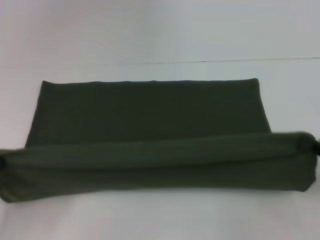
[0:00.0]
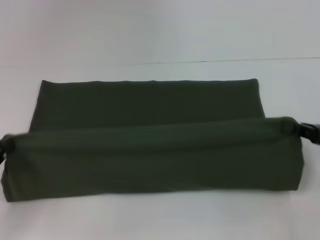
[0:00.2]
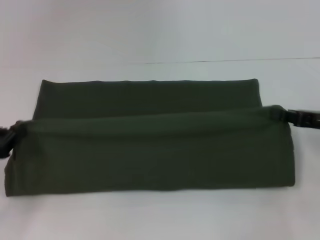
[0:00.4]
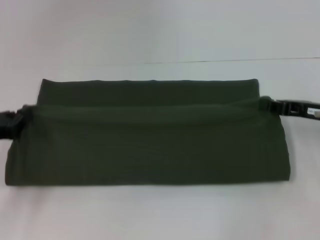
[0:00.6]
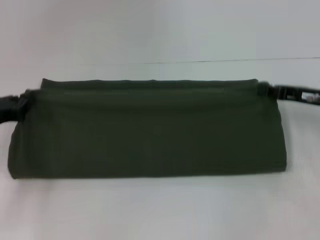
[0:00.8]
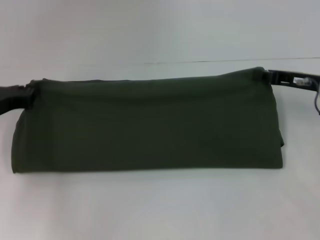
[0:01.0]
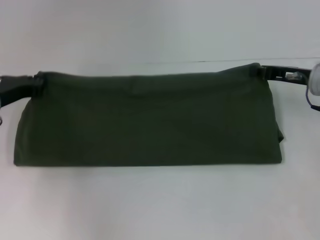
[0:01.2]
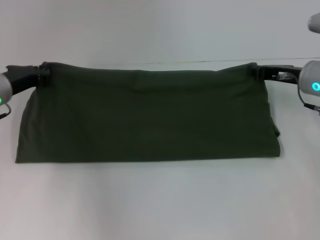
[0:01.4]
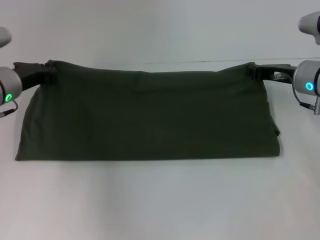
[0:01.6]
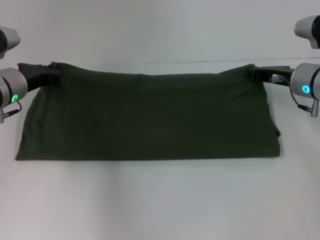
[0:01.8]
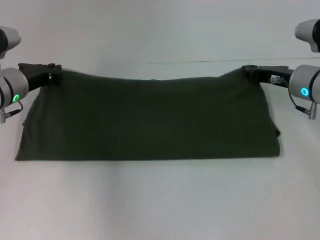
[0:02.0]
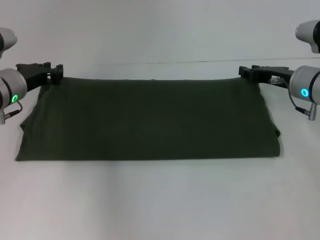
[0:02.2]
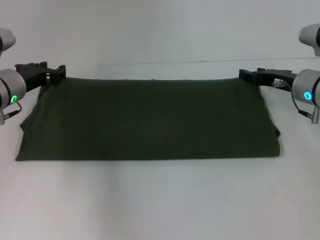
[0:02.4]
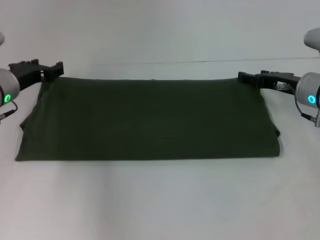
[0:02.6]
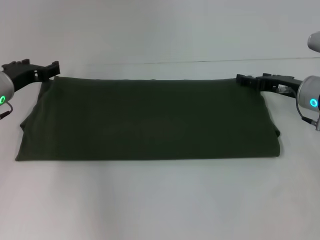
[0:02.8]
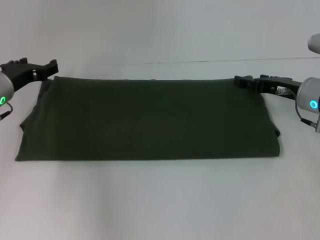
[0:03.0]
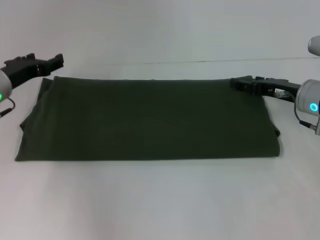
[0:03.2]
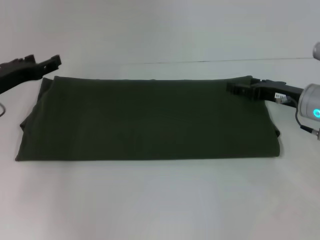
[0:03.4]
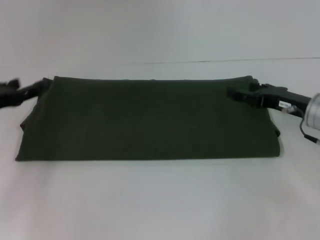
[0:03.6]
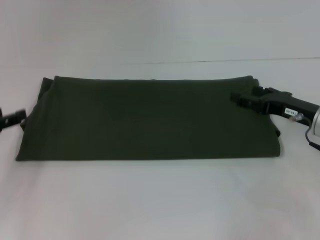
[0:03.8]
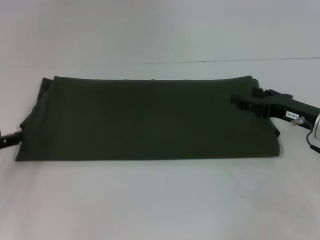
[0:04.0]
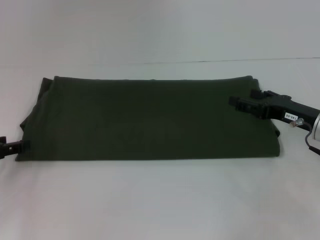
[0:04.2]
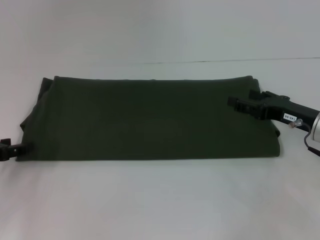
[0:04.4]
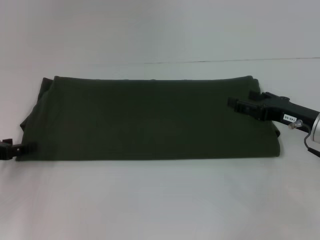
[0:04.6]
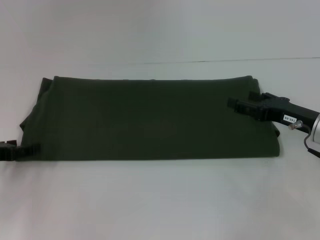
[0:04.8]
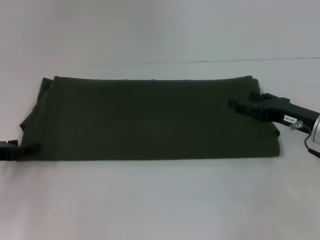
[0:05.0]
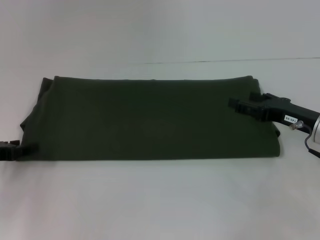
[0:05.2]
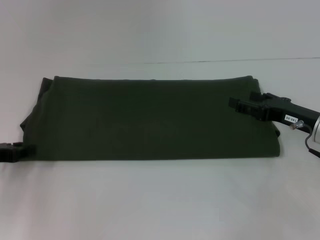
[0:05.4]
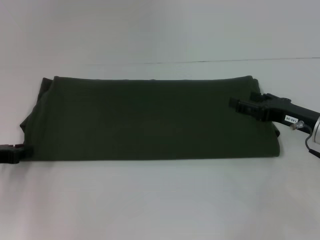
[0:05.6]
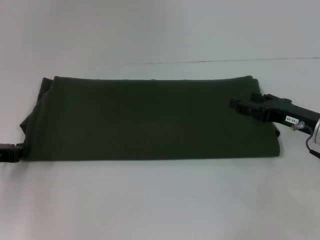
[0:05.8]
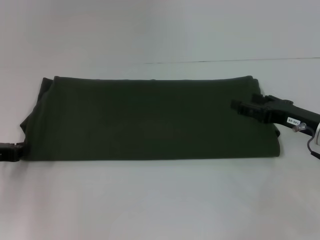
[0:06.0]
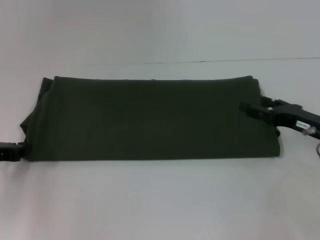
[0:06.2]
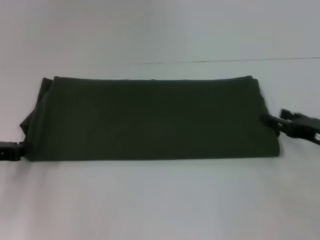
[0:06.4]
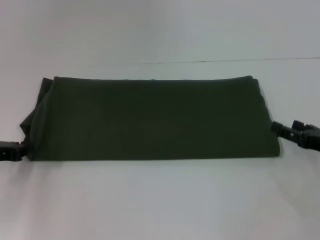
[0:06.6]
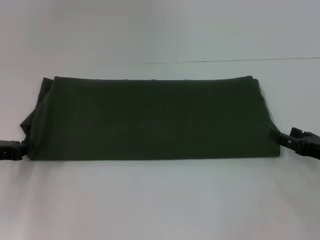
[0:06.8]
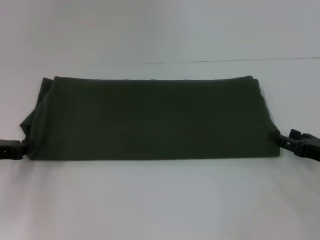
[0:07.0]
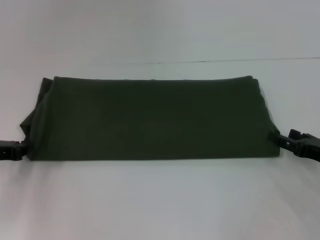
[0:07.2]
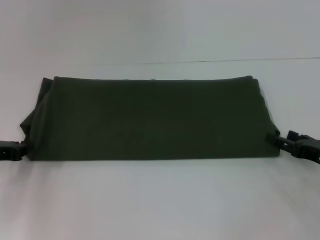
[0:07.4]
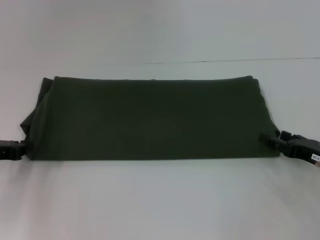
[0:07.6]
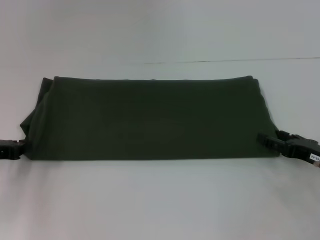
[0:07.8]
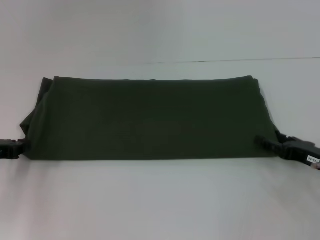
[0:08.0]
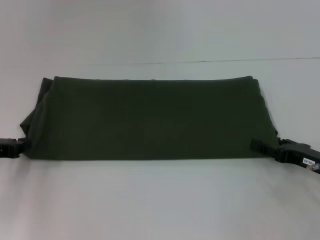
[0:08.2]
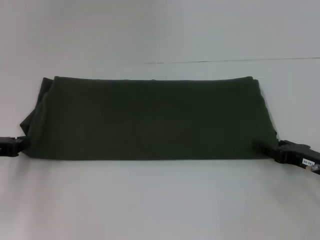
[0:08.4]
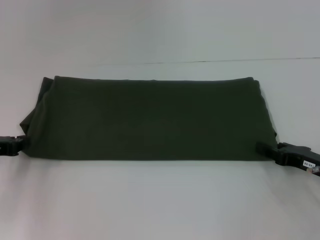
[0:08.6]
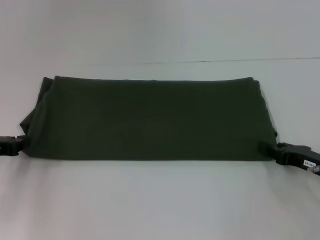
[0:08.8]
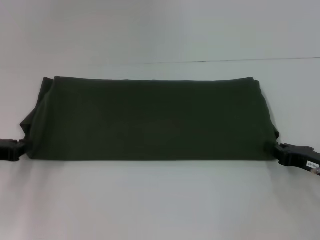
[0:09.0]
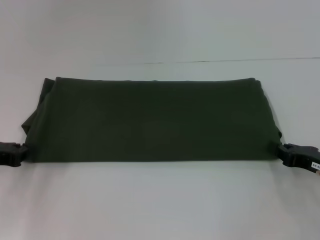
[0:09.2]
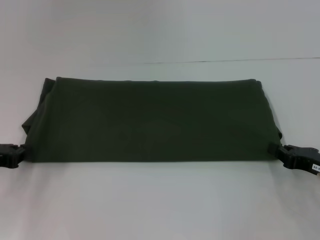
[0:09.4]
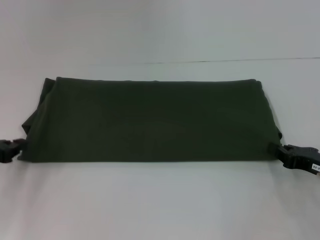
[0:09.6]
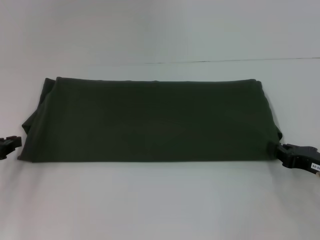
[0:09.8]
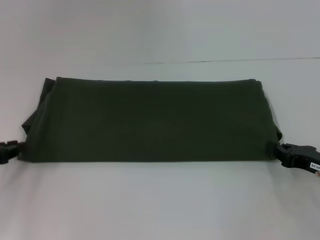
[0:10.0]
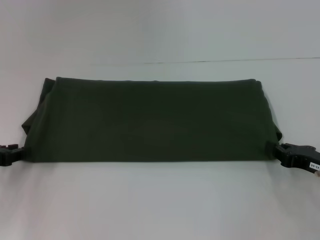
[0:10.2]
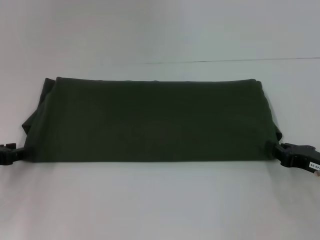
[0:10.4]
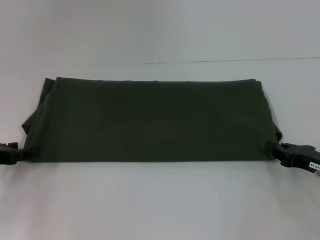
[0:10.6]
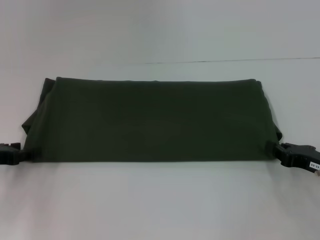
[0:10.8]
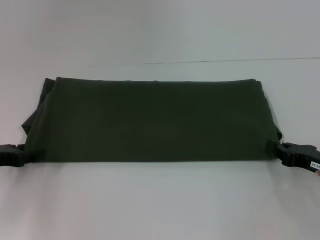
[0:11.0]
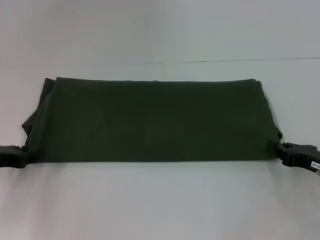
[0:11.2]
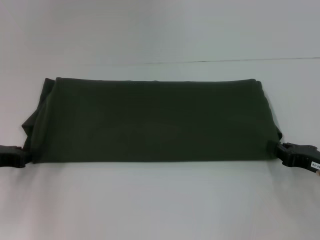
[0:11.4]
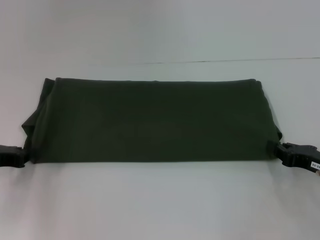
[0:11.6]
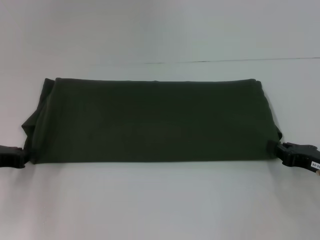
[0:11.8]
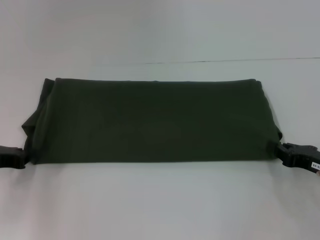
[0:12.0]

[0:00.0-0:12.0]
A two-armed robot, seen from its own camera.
Step, 0:00.0 to 0:02.6: Fold the clothes with your right hand.
0:00.0 to 0:01.6: The left gripper goes about 25 cm forward and to the right, while the right gripper shifts roughly 20 cm forward and to the left.
0:01.6 to 0:03.0: The left gripper opens up. The right gripper opens.
0:03.0 to 0:04.4: The left gripper shifts some 15 cm backward and to the left; the right gripper moves backward, some 5 cm.
0:06.0 to 0:07.6: The right gripper shifts by approximately 5 cm.
0:07.6 to 0:09.0: The right gripper closes.
0:09.0 to 0:10.4: The grippers move only a little.
0:10.4 to 0:12.0: The left gripper closes its fingers.

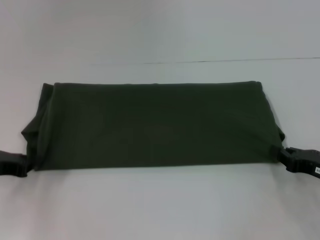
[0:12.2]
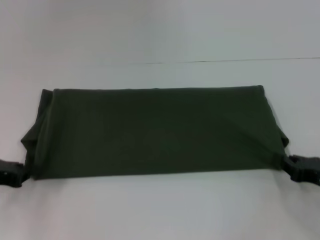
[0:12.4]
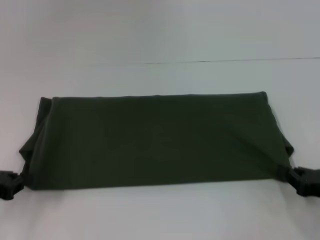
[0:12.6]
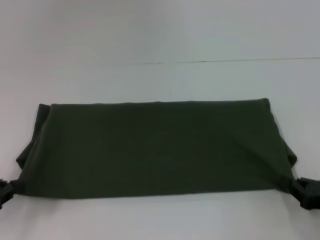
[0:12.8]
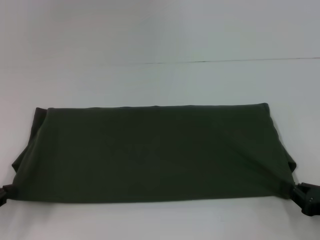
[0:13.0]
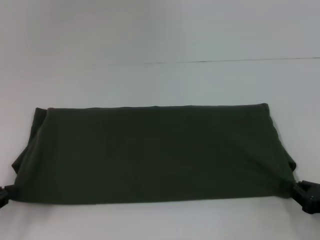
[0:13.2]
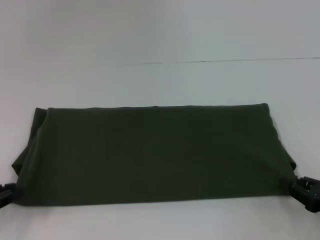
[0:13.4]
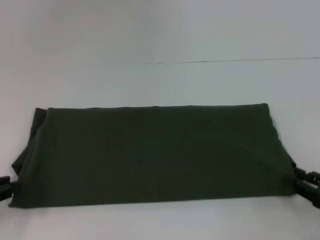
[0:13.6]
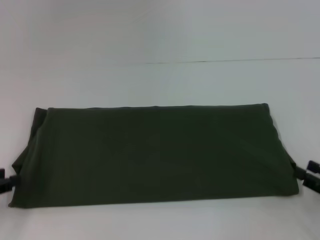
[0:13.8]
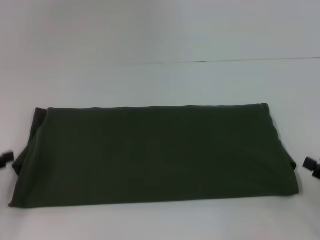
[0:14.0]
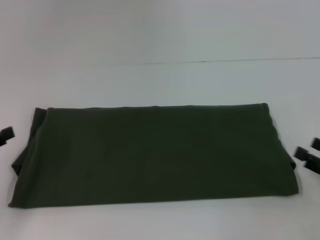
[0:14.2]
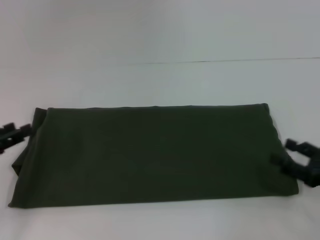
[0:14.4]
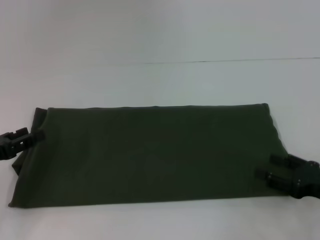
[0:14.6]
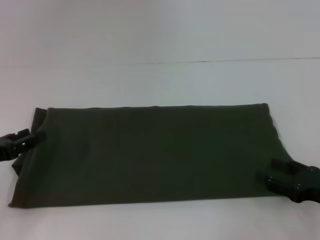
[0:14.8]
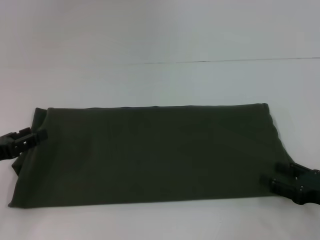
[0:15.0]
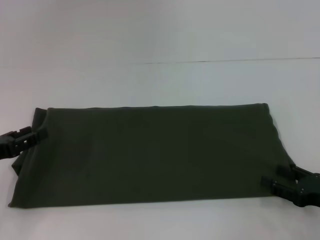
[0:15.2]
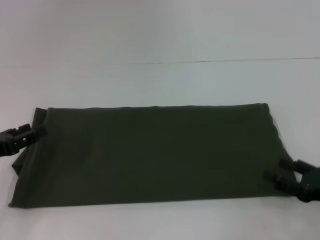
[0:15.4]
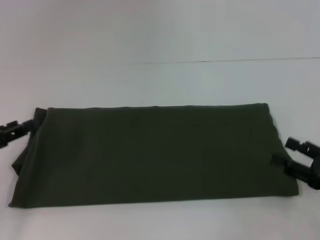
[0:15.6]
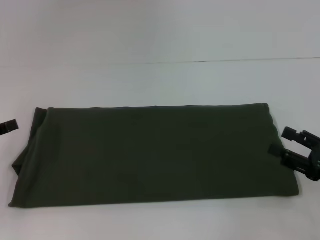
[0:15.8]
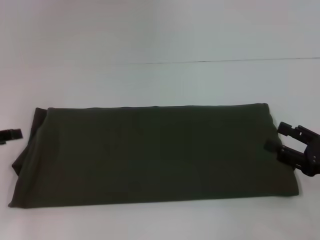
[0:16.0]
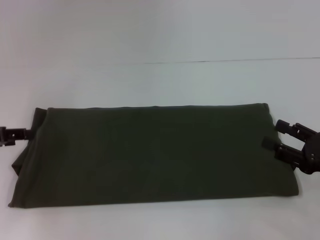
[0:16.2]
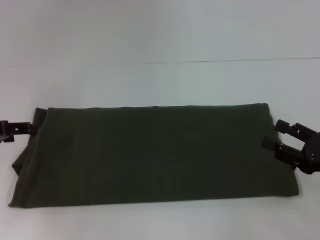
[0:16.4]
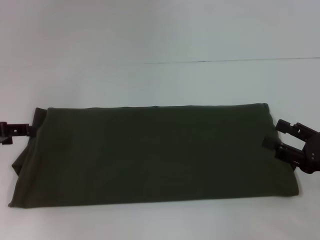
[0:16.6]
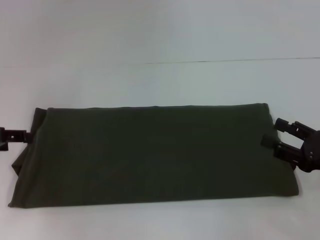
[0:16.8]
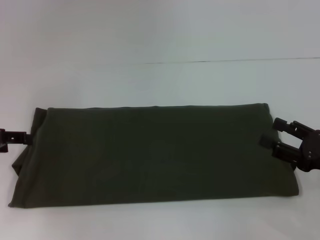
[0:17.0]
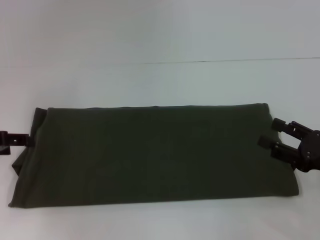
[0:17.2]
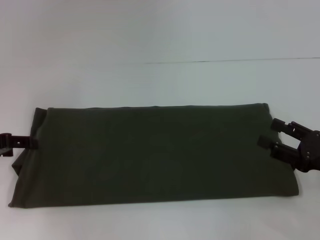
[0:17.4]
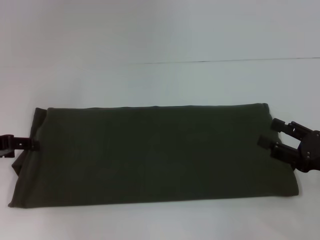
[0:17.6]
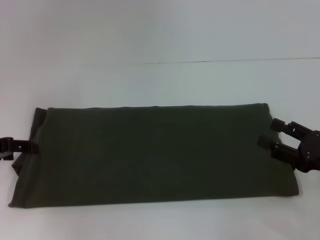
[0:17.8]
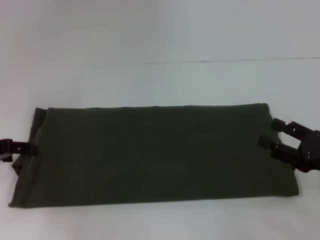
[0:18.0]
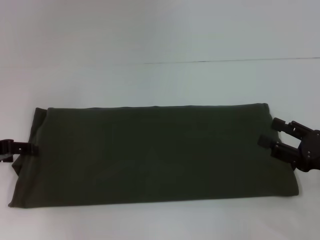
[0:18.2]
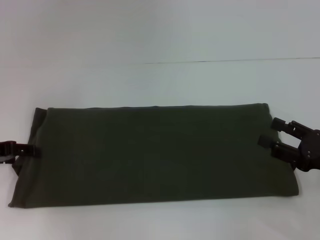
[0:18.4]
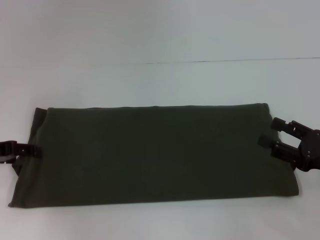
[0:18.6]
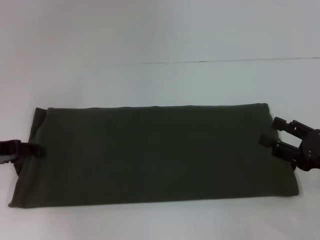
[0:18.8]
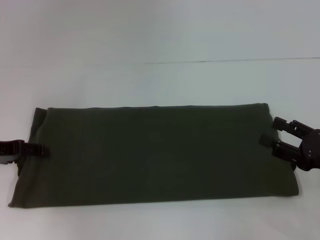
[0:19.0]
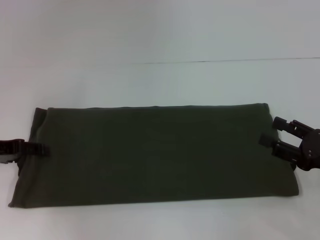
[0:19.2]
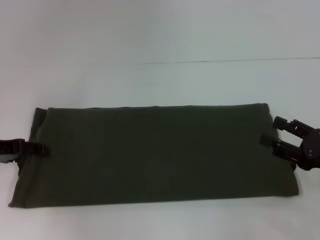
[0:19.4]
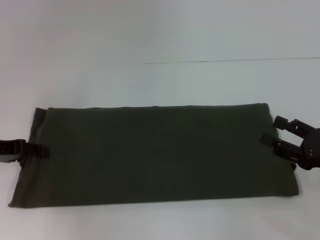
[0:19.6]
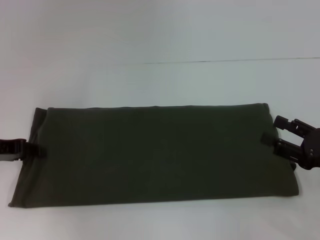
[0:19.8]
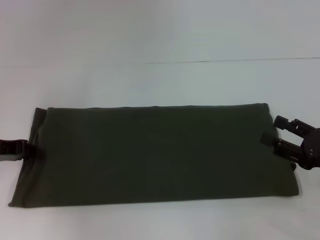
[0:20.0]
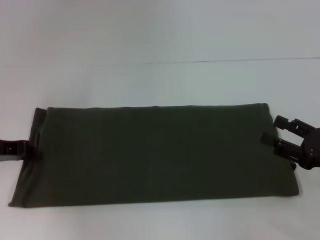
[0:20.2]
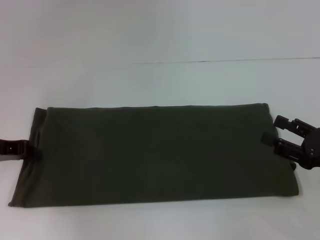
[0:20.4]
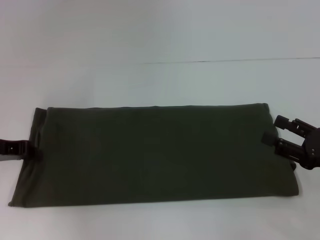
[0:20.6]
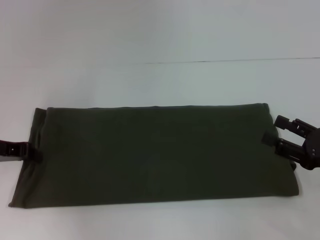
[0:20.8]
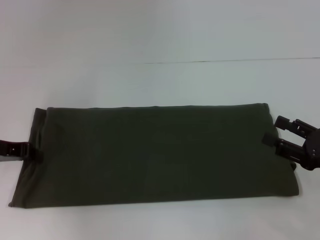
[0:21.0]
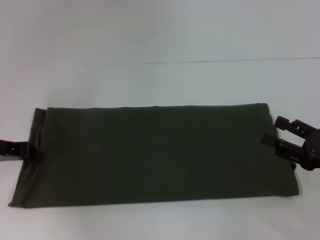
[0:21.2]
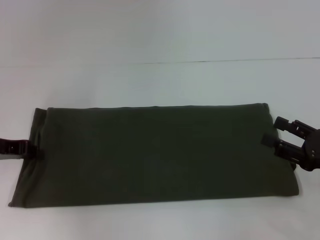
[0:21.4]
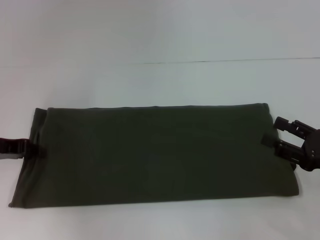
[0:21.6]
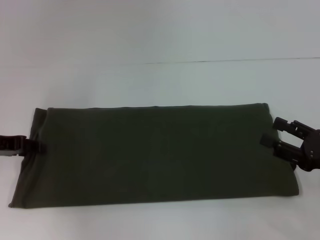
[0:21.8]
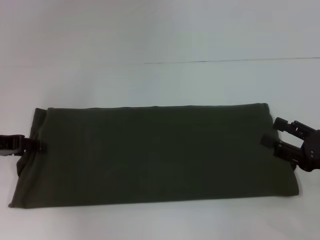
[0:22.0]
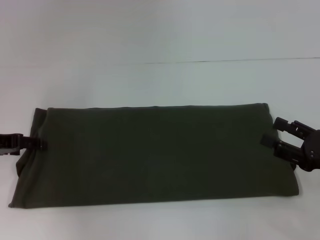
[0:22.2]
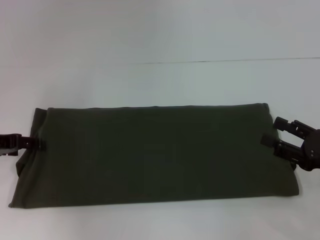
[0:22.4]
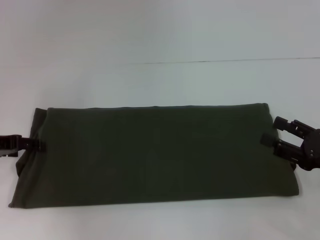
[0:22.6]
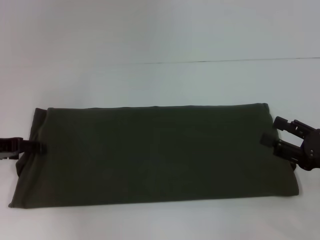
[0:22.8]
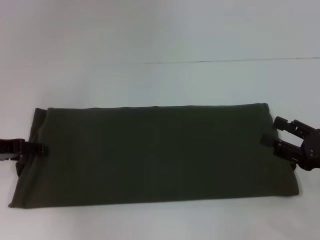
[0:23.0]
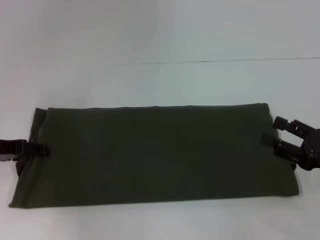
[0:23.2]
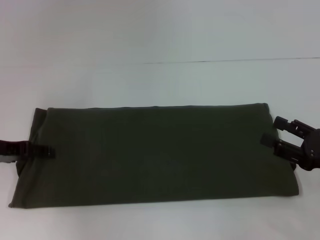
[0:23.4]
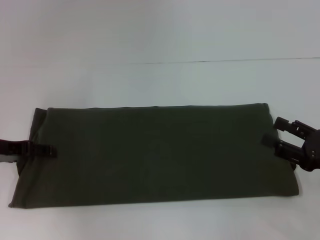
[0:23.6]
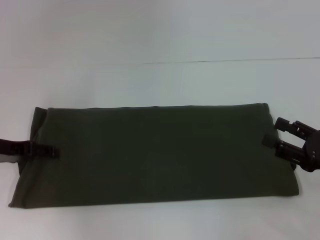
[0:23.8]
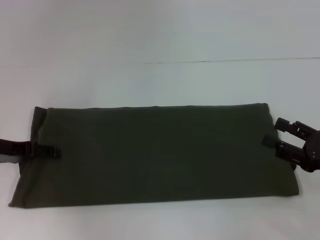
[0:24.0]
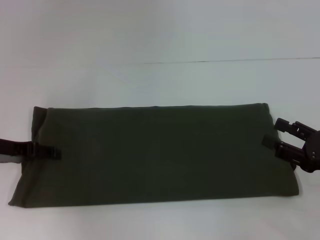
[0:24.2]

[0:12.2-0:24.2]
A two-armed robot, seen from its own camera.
0:12.2 to 0:13.8: The two grippers go some 5 cm backward. The right gripper opens.
0:13.8 to 0:15.2: The left gripper opens.
0:15.2 to 0:16.6: The left gripper goes approximately 5 cm forward.
0:16.6 to 0:19.8: There are only small adjustments of the grippers.
0:21.2 to 0:22.6: The left gripper opens up.
0:22.6 to 0:24.2: The grippers move only a little.
